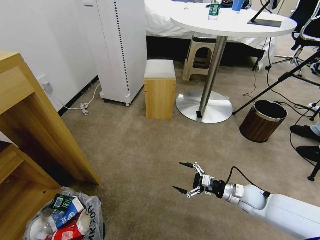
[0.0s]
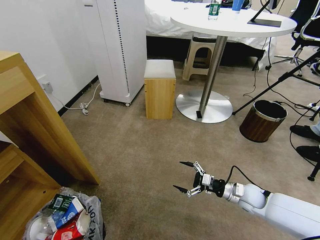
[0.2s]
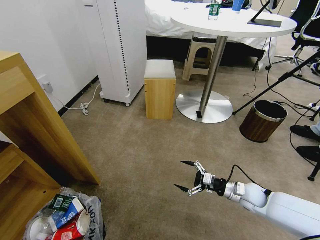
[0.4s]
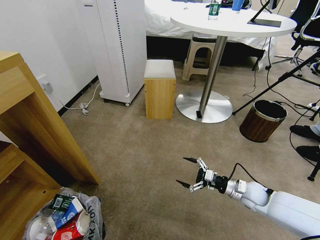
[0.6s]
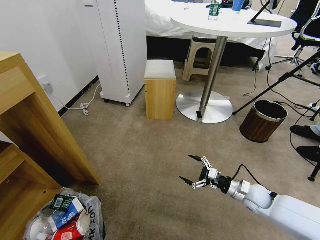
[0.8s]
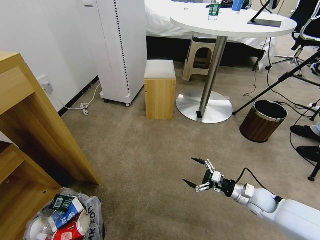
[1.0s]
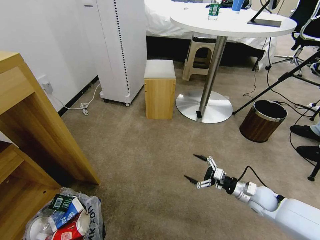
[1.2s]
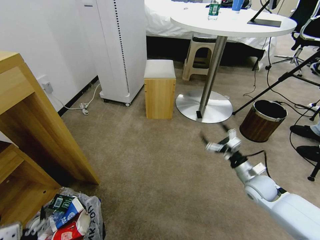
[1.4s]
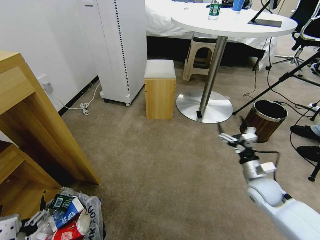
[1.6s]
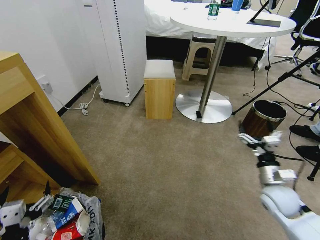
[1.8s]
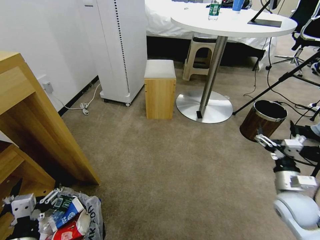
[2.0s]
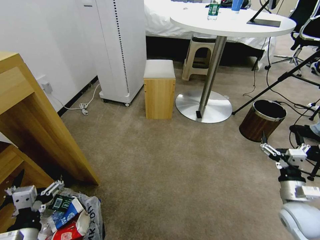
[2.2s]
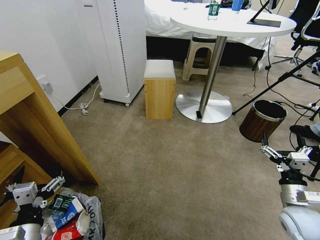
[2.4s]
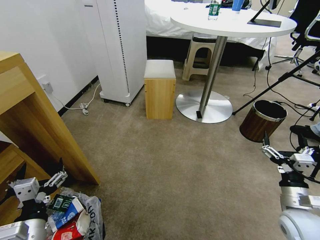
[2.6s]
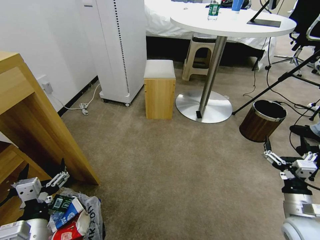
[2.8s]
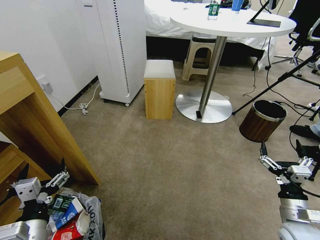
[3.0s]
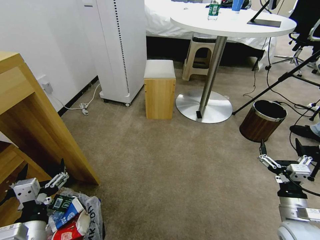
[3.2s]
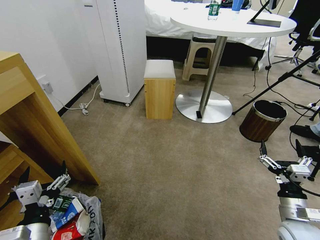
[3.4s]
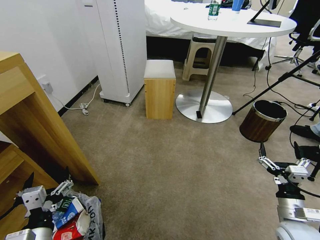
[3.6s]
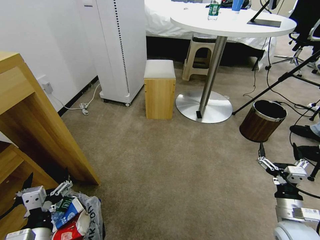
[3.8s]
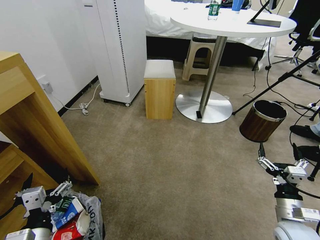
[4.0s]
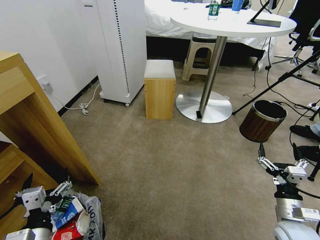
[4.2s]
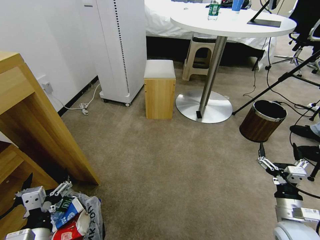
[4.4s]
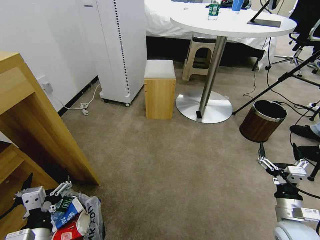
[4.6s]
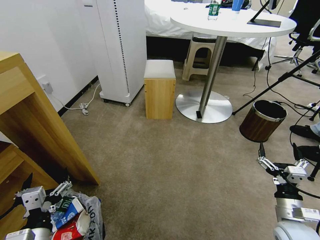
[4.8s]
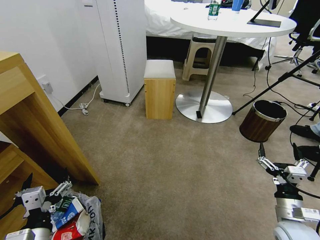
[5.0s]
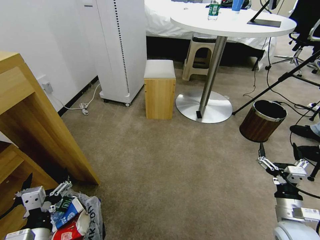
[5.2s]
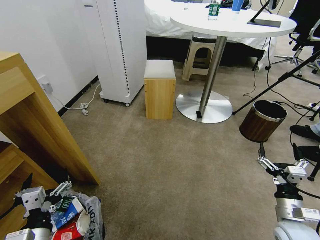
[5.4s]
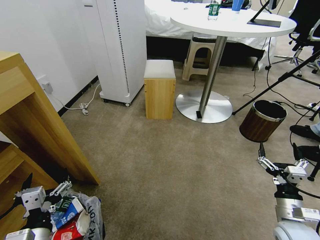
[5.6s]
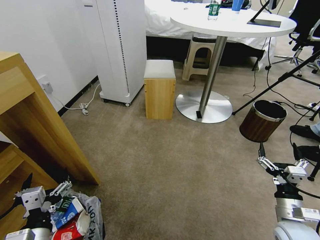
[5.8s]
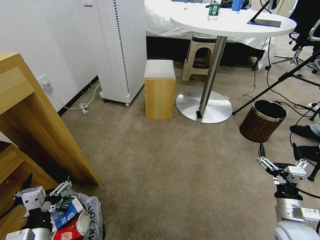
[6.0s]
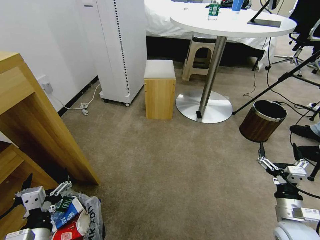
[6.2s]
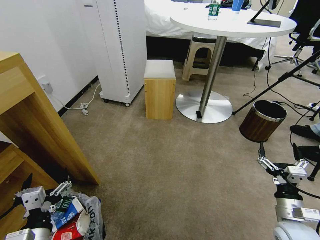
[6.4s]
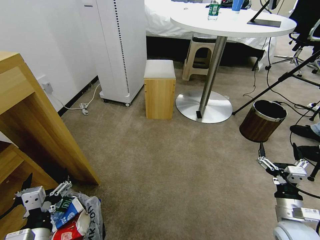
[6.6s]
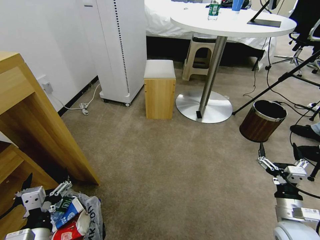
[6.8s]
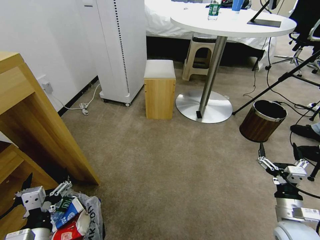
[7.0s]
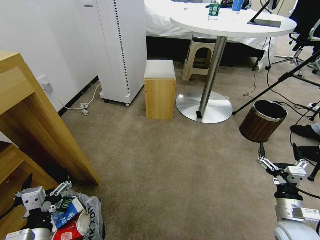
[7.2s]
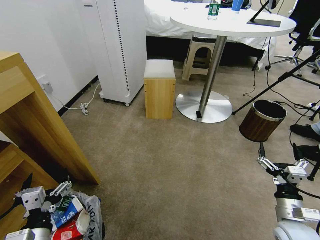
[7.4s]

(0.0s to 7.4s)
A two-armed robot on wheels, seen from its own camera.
Task of the whole recording: Pick up the trash bin and place the garbage on the floor into it.
0.0s - 1.4s: The left gripper is displaced backward by roughly 5 cm.
1.4s - 3.0s: The left gripper travels forward by approximately 10 cm. Meanwhile the right gripper shifts some 15 cm backward.
3.0s - 4.4s: There are only small adjustments of the grippers.
4.4s - 7.4s: Neither gripper changes place.
